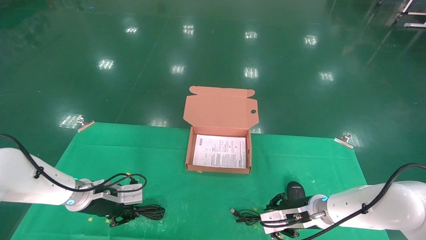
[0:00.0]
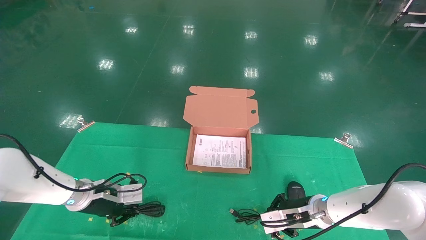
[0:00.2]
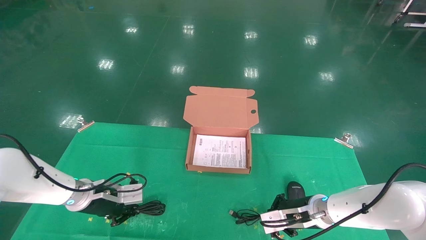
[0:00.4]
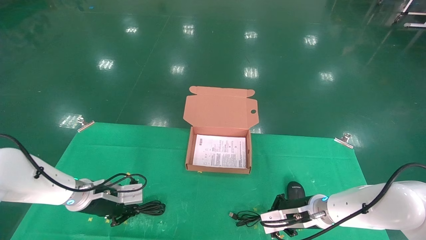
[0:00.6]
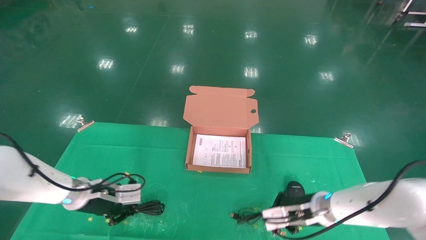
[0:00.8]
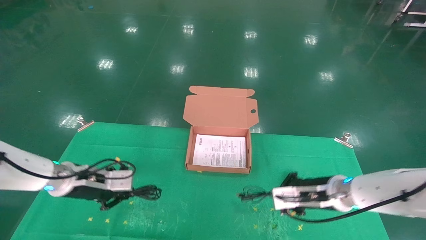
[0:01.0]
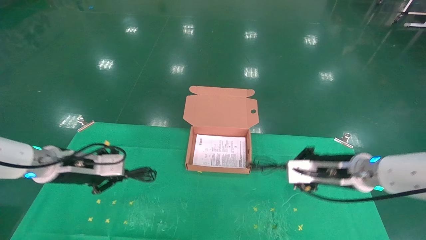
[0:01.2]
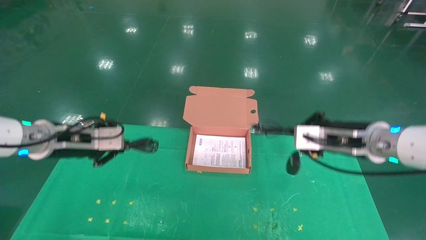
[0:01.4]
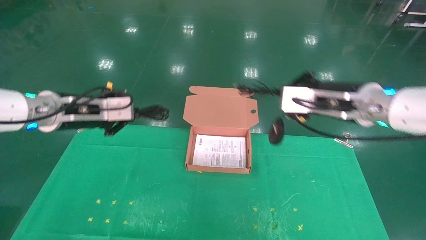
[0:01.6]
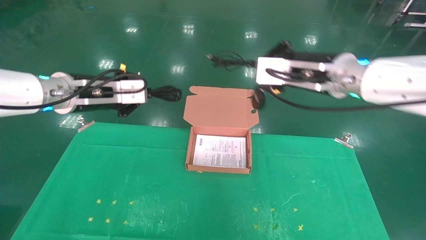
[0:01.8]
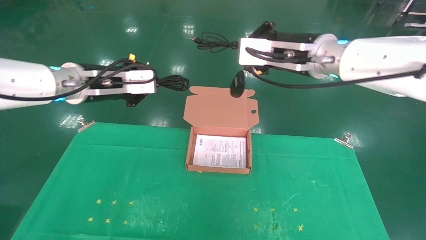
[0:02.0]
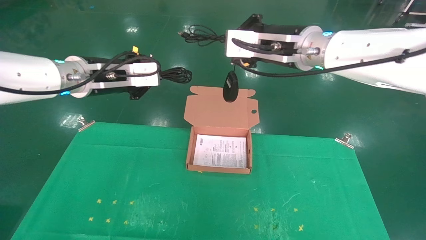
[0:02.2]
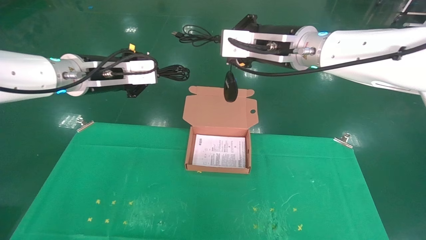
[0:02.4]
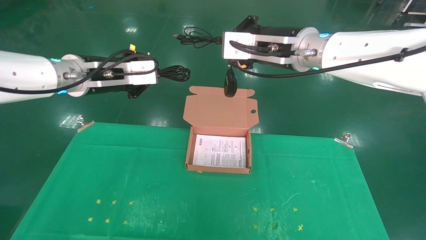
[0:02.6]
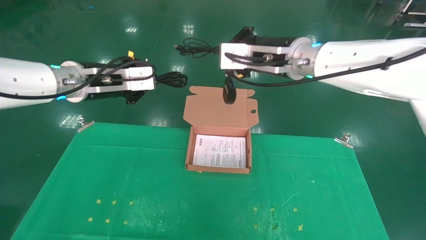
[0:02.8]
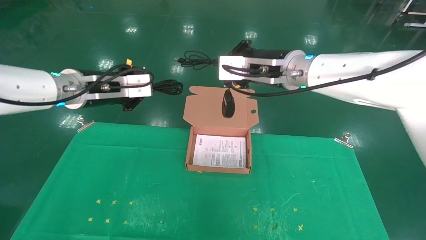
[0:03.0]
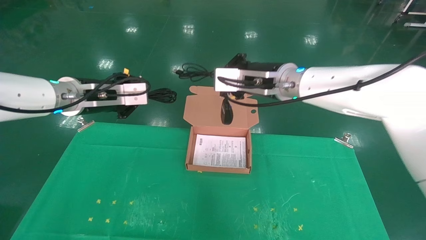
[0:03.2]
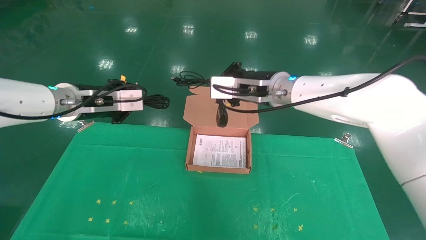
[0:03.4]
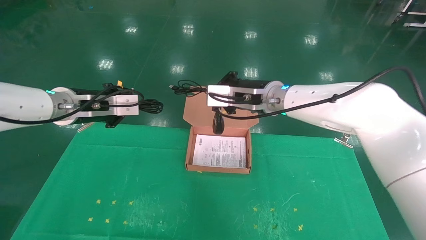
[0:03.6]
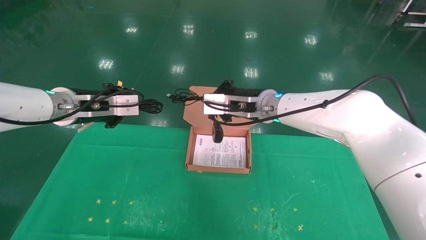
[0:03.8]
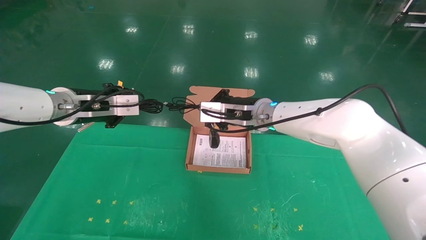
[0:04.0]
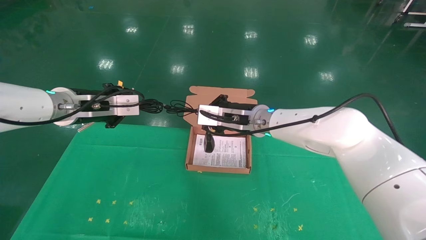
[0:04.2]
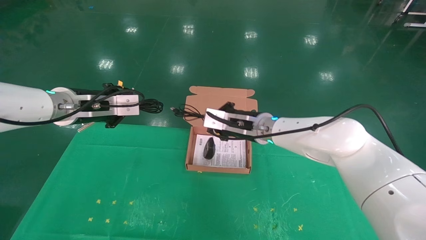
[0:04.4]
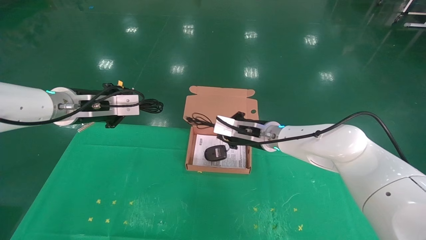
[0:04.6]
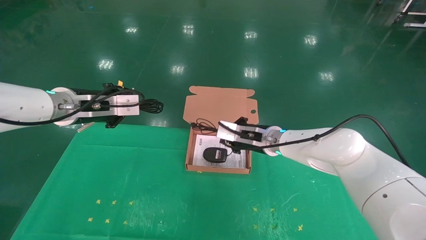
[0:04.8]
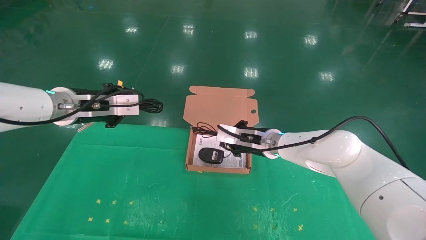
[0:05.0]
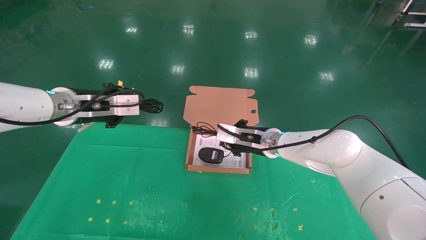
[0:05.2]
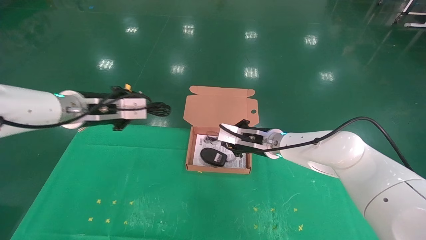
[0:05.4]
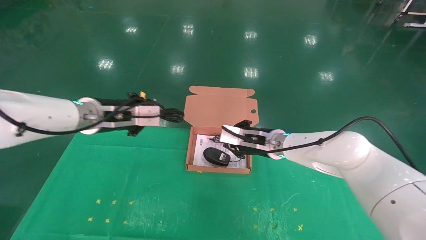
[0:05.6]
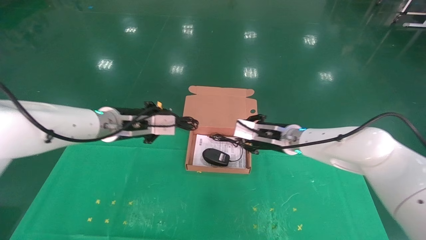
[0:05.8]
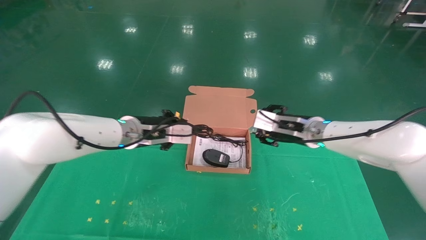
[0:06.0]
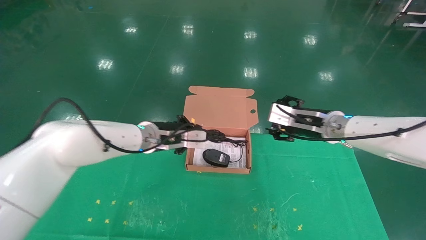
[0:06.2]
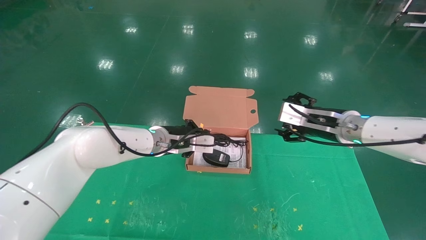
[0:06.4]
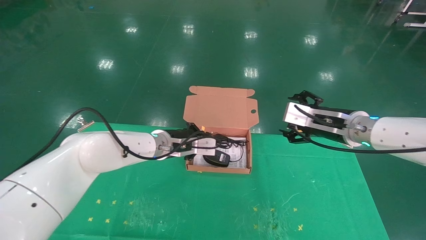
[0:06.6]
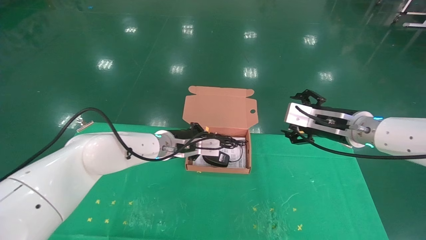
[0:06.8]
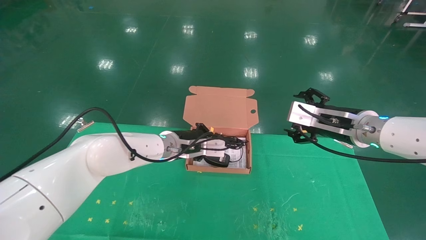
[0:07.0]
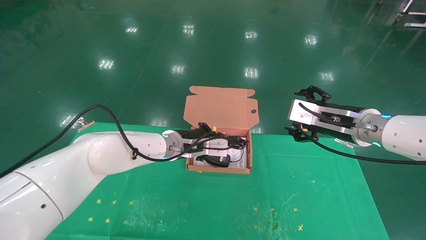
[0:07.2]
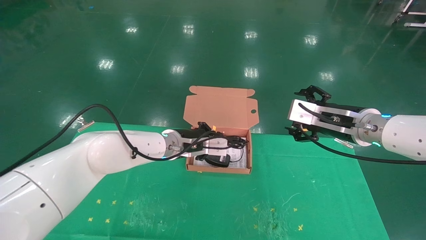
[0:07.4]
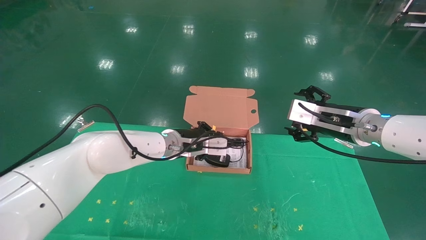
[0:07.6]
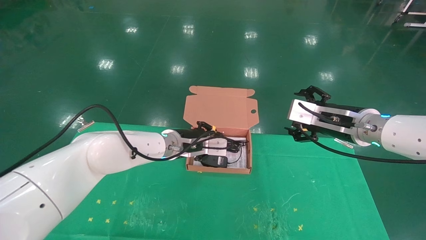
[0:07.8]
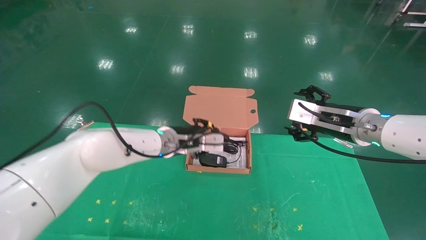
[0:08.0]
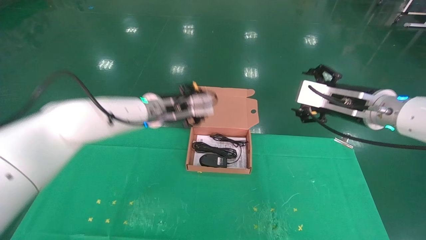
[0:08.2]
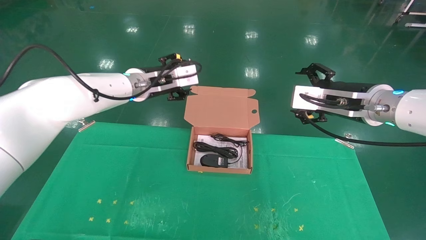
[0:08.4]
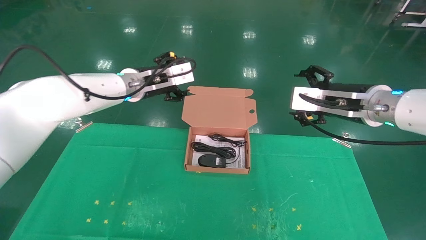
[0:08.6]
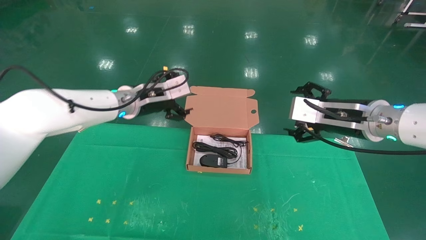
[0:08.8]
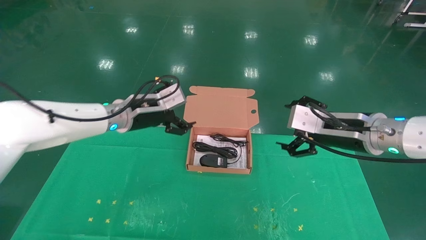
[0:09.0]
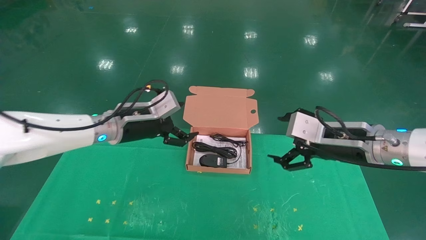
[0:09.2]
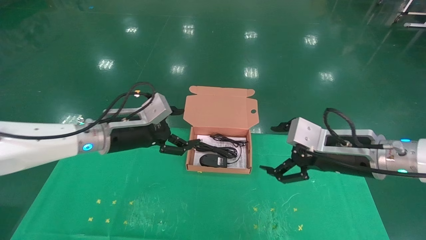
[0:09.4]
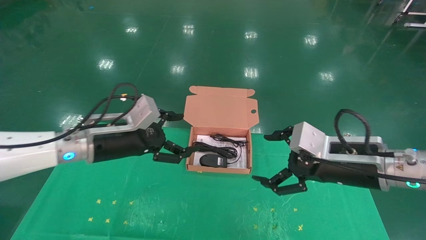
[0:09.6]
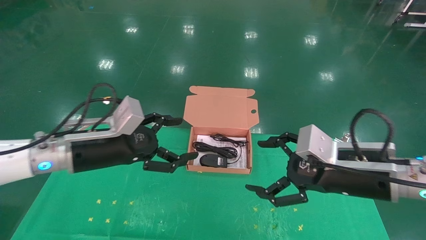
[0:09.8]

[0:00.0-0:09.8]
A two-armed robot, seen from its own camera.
Task of the whole recording: grasp data cable left put into box grasp mouse right put into box.
Step, 0:01.4 to 0:07.8: Place the mouse and power cord into the box.
0:00.0 to 0:01.4: The two grippers go some 20 cm upward. The right gripper closes its fingers.
0:01.4 to 0:02.8: The left gripper shifts roughly 10 cm upward and to the right; the right gripper goes some 20 cm to the left and upward.
0:02.8 to 0:04.2: The right gripper moves downward and forward, about 15 cm.
0:04.2 to 0:05.6: The right gripper moves downward and to the right, roughly 10 cm; the left gripper changes place by about 5 cm.
0:05.6 to 0:07.0: The left gripper moves to the right, downward and forward, about 20 cm; the right gripper shifts roughly 15 cm to the right, backward and upward, and opens.
0:07.0 to 0:08.4: The left gripper shifts about 10 cm upward, and opens.
0:08.4 to 0:09.8: The left gripper travels backward, to the left and downward by roughly 15 cm, and opens. The right gripper is displaced backward and downward by some 10 cm.
